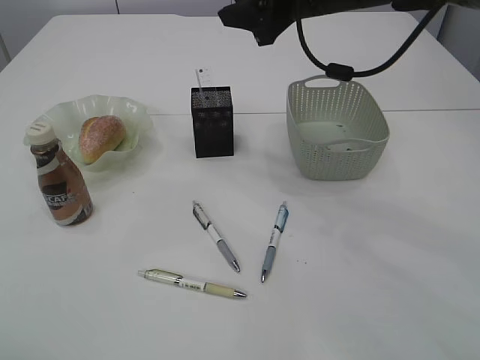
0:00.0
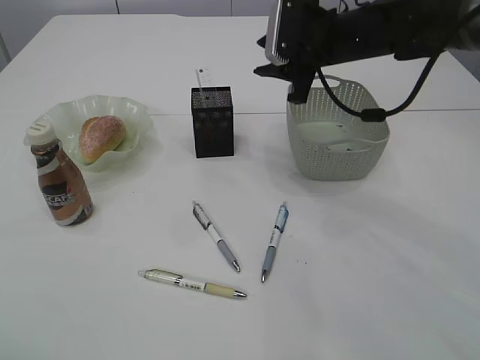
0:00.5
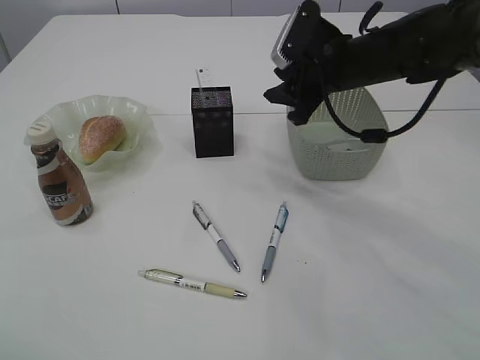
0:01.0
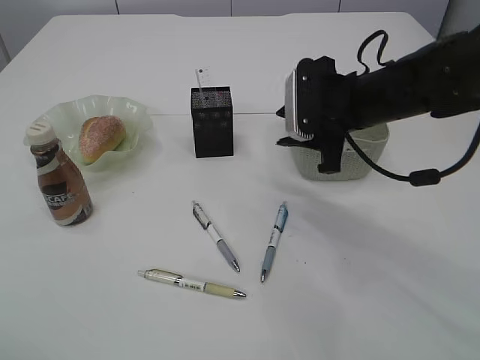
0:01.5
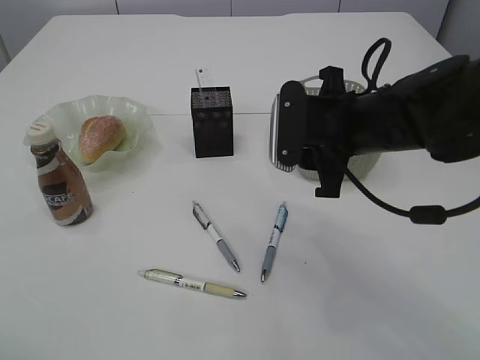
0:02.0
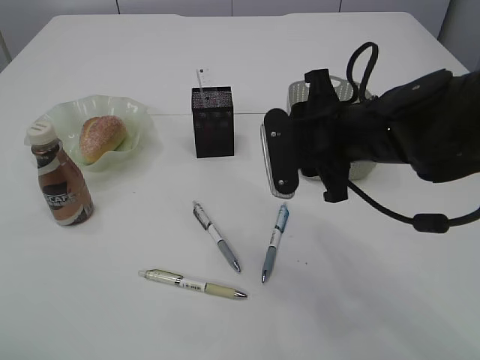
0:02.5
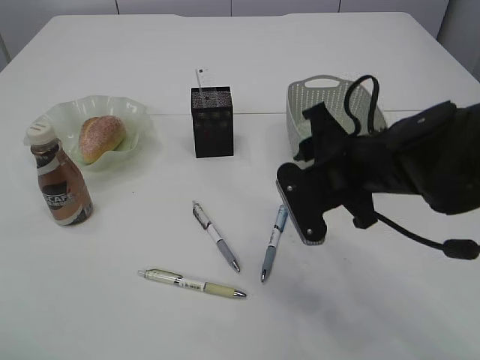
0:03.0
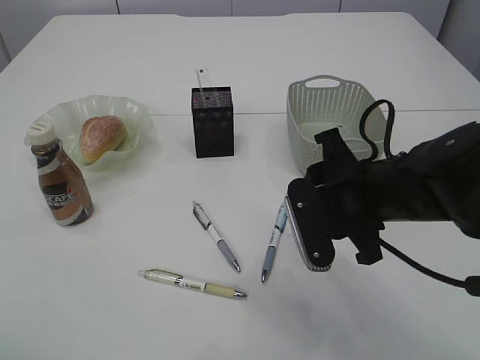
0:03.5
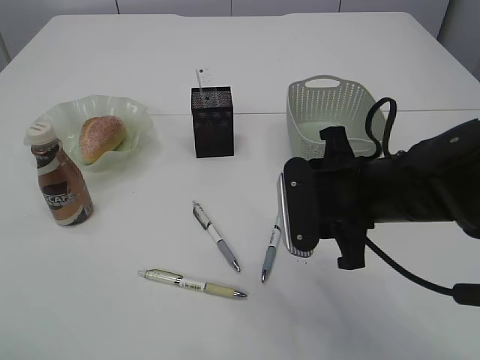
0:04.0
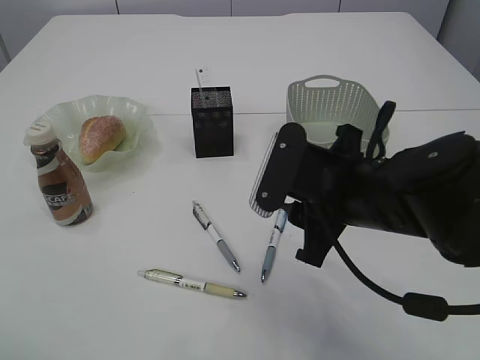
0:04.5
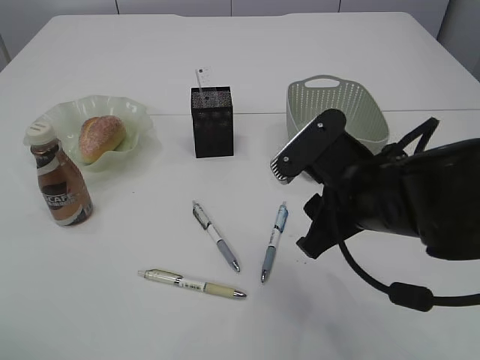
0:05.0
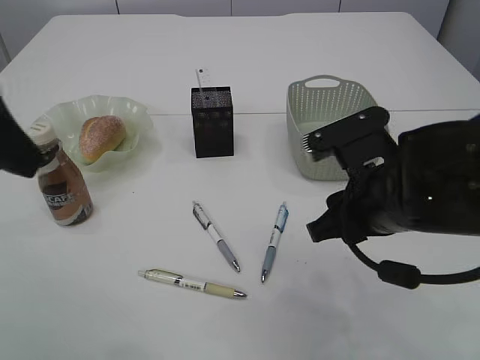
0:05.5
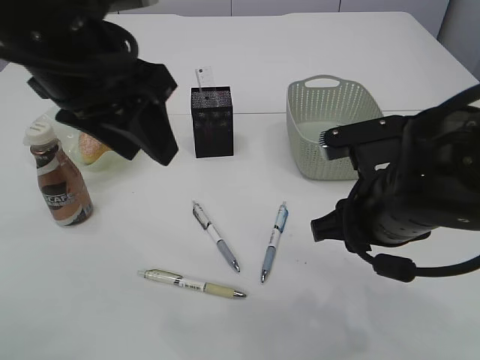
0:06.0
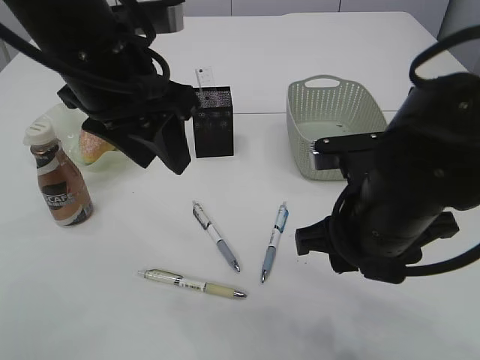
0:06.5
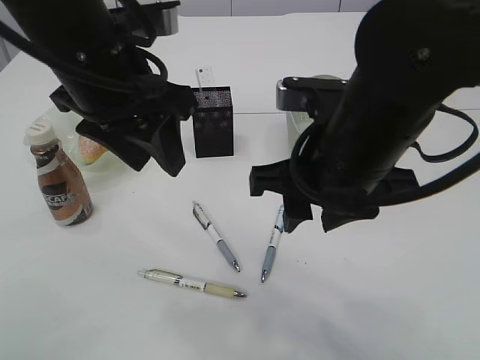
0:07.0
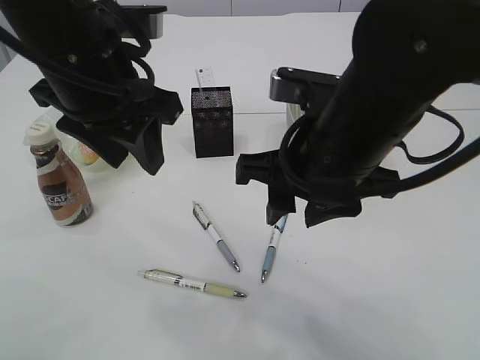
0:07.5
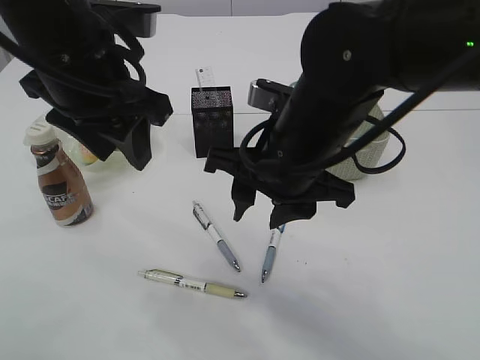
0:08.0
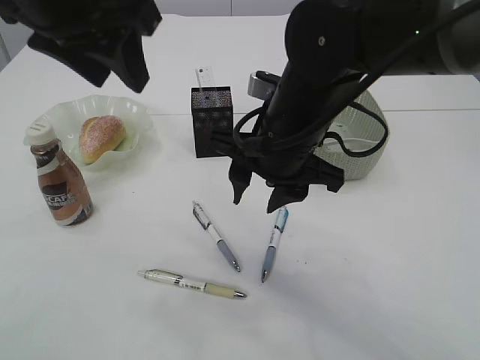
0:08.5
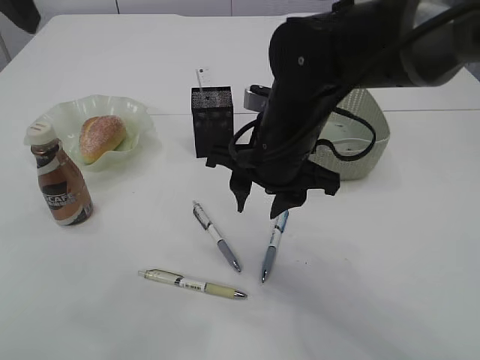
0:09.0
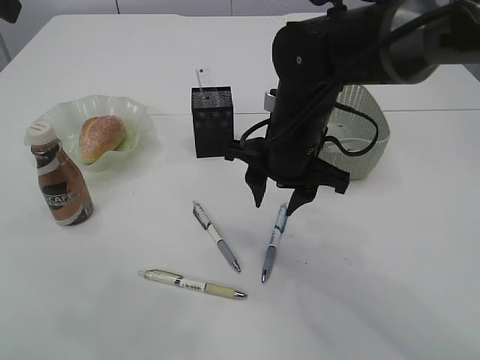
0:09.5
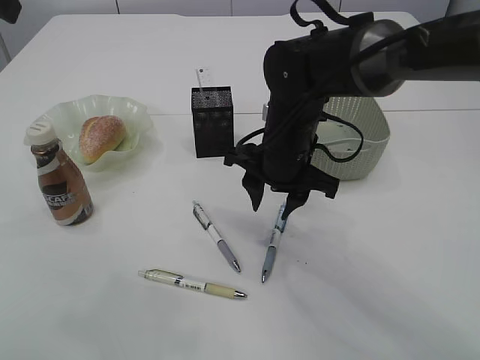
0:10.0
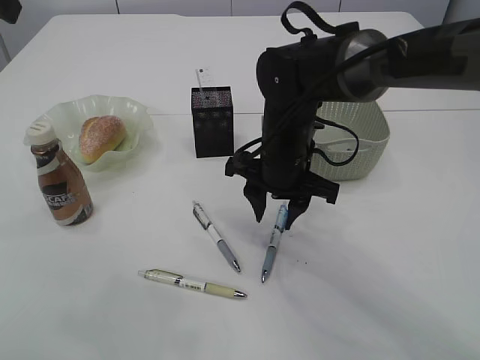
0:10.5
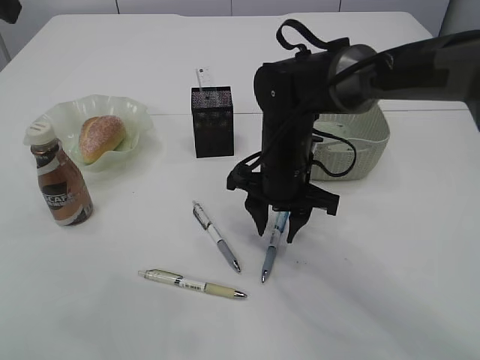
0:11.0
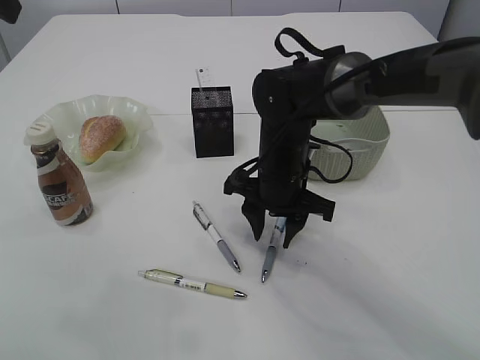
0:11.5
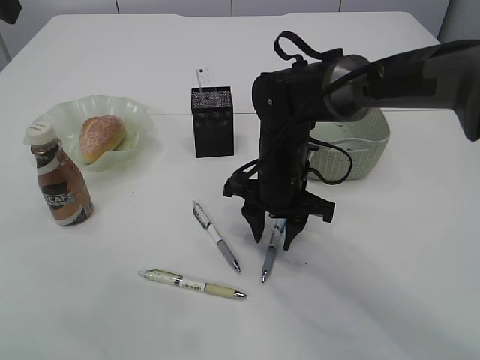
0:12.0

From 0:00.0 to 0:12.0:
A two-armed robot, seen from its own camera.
From 0:00.0 to 0:02.0: The right gripper is displaced backward and downward by roughly 15 cm.
From 0:02.0 to 0:04.0: The right gripper heads backward, covering some 5 cm.
From 0:04.0 to 0:06.0: The left gripper travels to the right and forward by about 20 cm.
From 0:06.0 to 0:08.0: The right gripper travels to the left by approximately 10 cm.
From 0:08.0 to 0:10.0: The left gripper moves upward and to the left, approximately 15 cm; the right gripper goes some 10 cm forward and downward.
From 0:10.0 to 0:12.0: The grippers stay close to where they were, moving slightly.

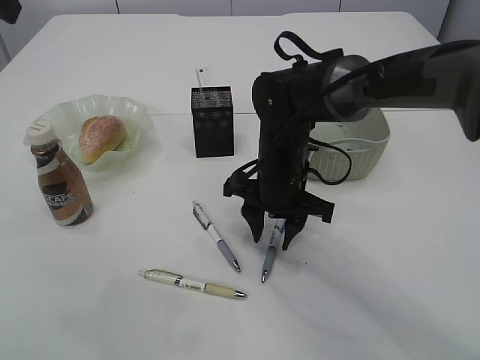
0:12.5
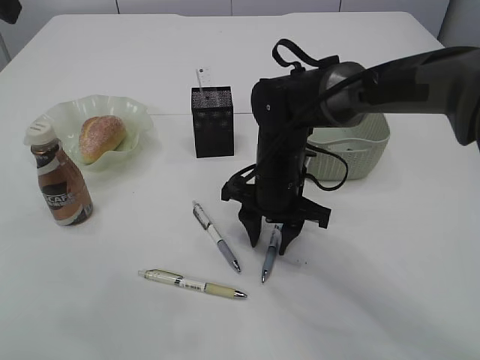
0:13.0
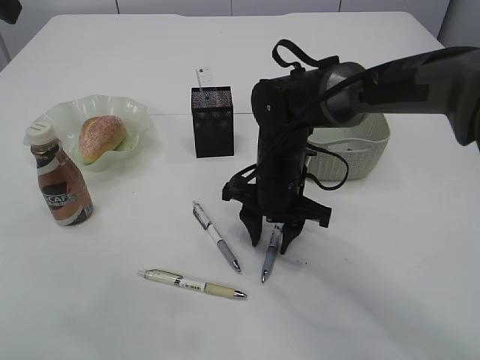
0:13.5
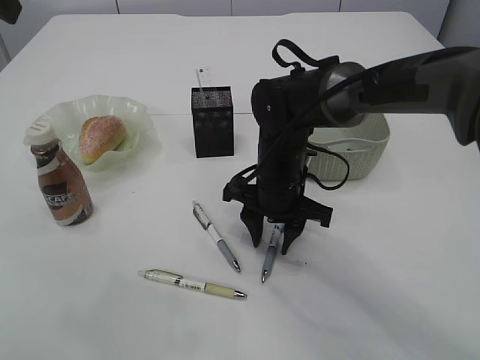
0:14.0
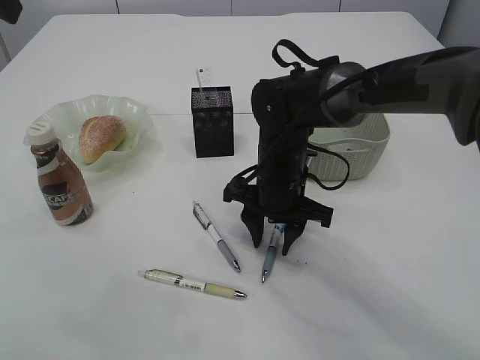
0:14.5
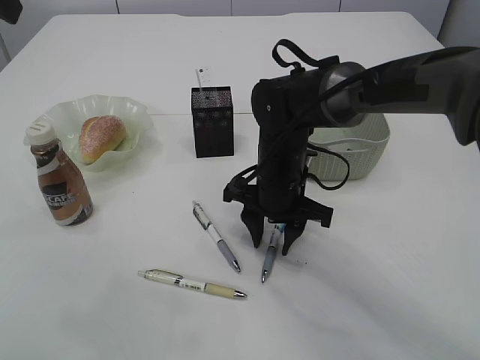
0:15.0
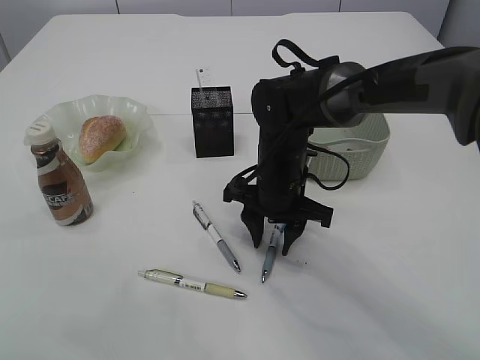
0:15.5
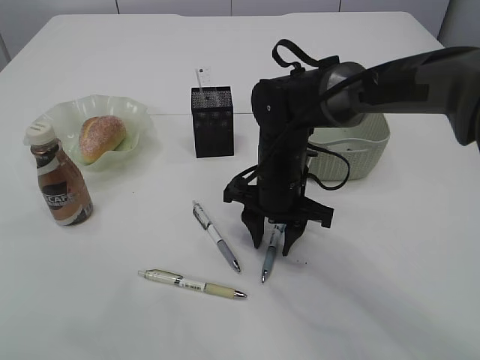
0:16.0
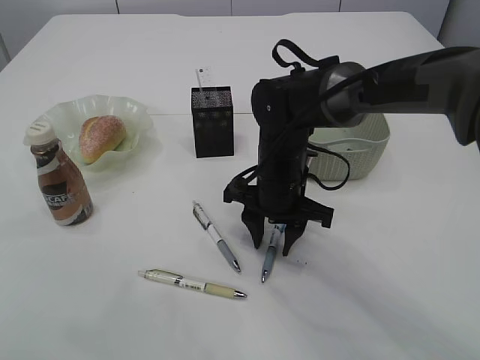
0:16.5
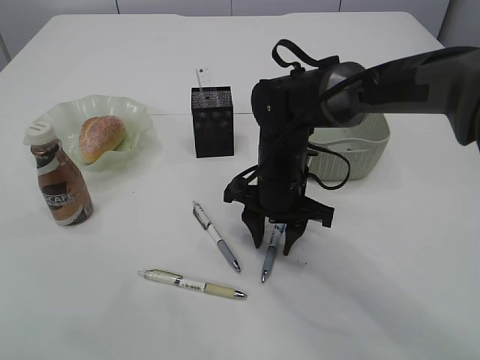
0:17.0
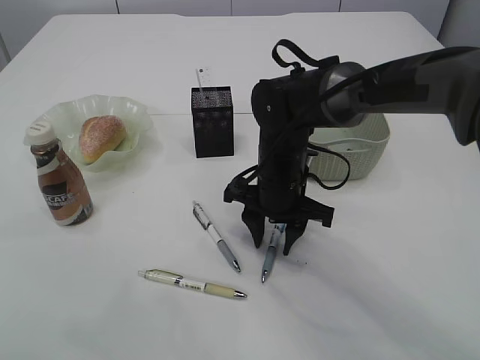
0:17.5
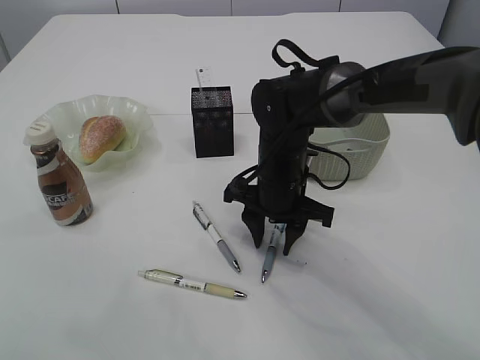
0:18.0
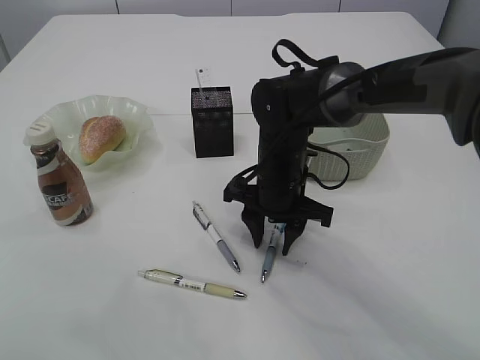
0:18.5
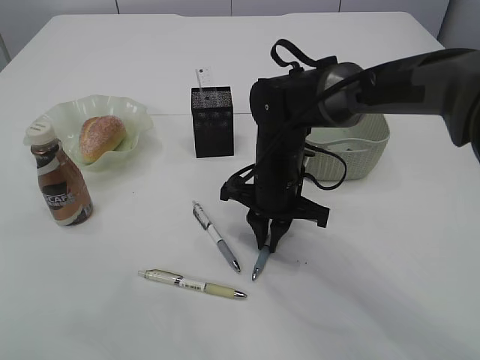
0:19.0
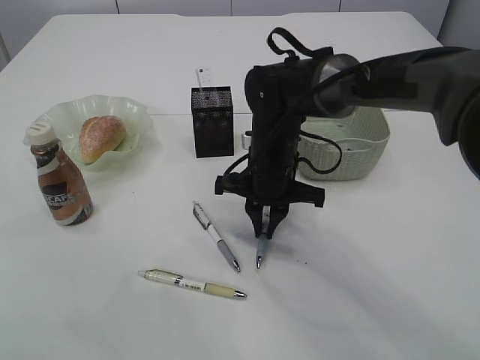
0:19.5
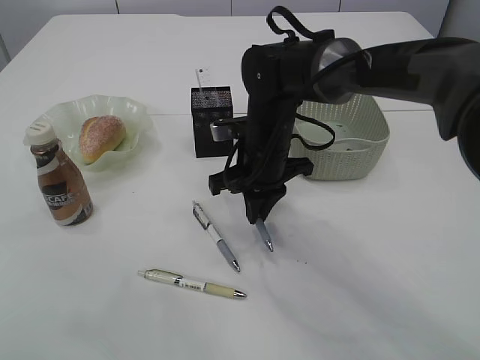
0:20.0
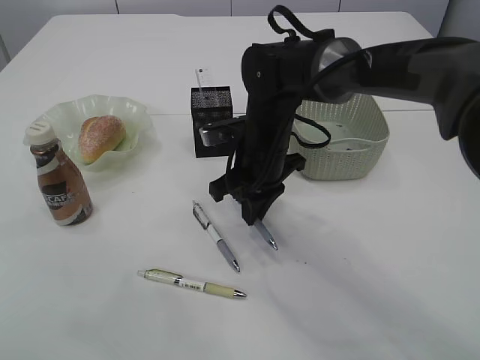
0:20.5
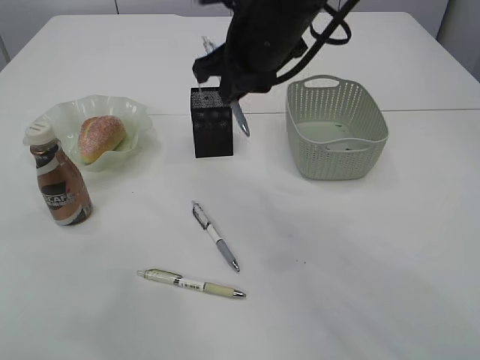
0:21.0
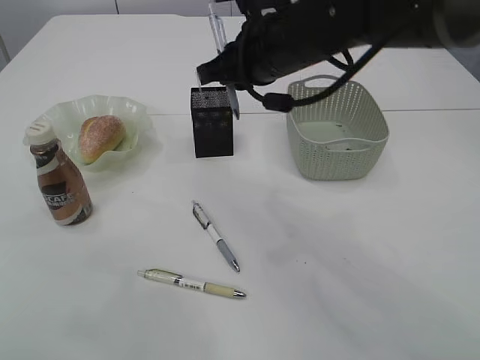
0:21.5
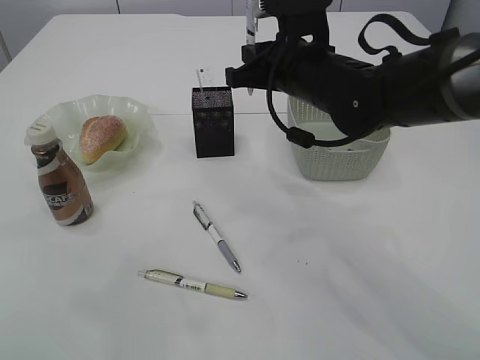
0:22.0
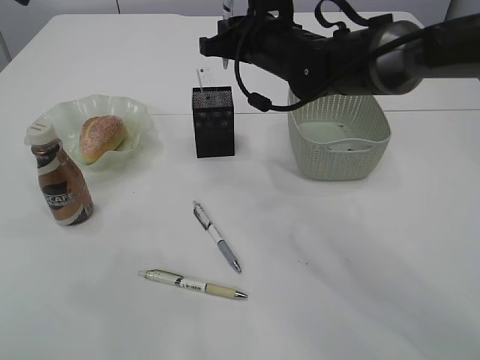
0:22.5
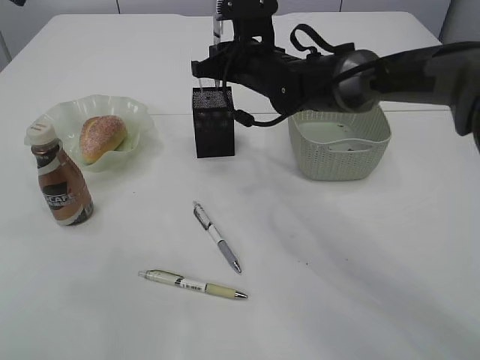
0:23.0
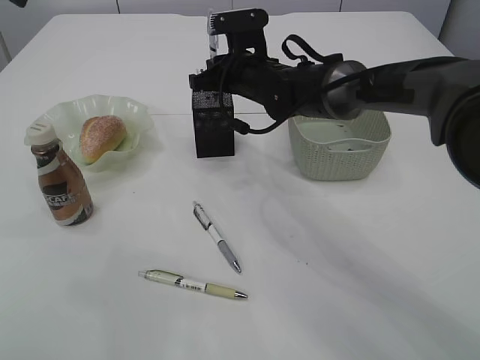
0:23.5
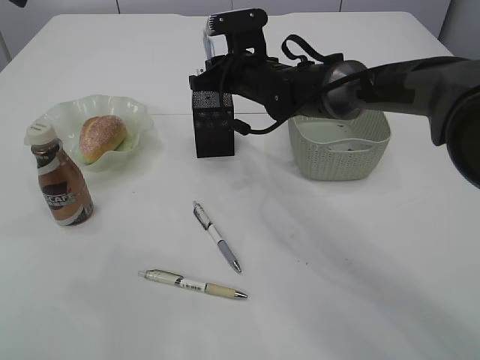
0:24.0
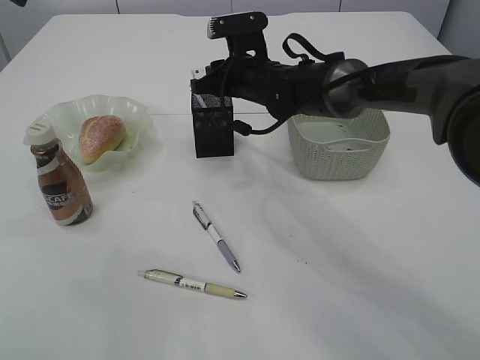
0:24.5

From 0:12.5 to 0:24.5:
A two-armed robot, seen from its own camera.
Step, from 0:12.5 to 0:20.5: Pick up the pen with right arm.
From 0:12.5 to 0:14.5: Neither gripper changes place.
From 0:16.5 to 0:18.5: Neither gripper changes place.
From 0:18.5 to 0:20.5: The right gripper closes.
From 0:20.5 to 0:22.5: The right gripper goes about 10 cm upward and forward.
From 0:22.5 to 0:24.5: The right gripper shifts roughly 5 cm downward.

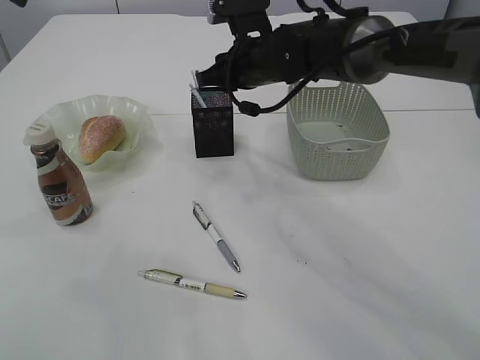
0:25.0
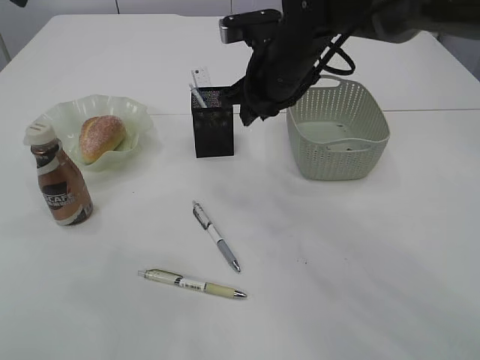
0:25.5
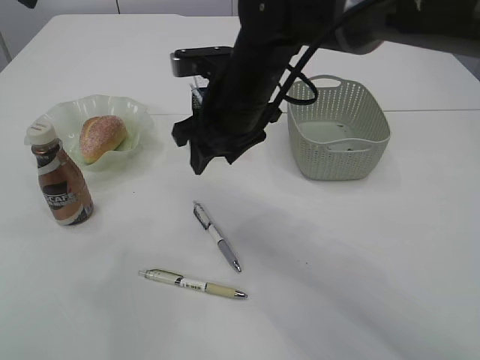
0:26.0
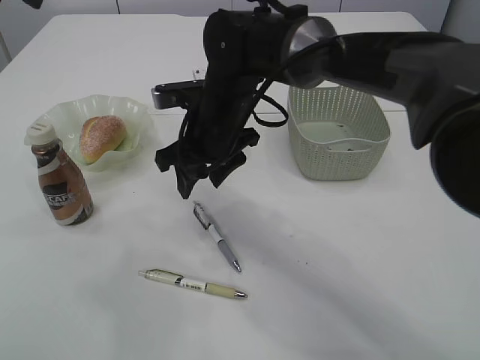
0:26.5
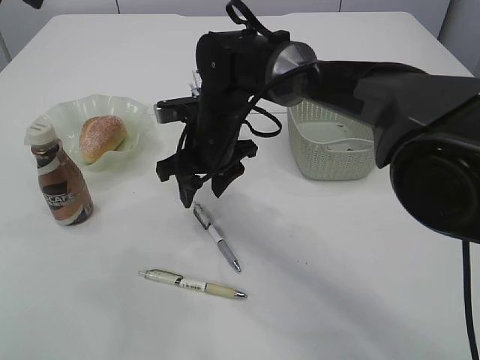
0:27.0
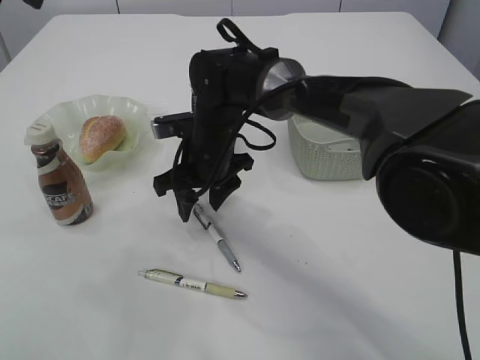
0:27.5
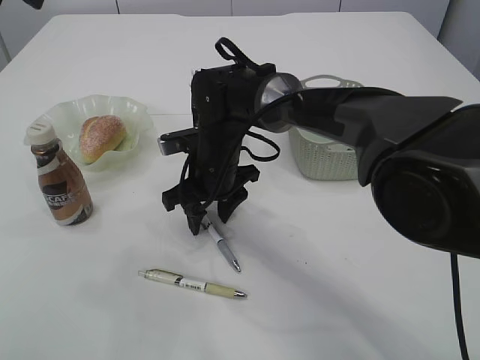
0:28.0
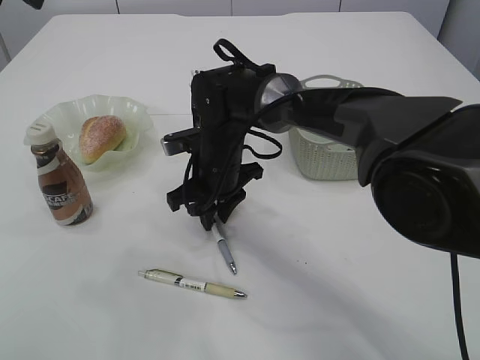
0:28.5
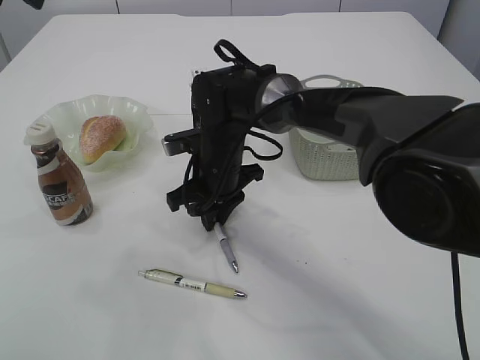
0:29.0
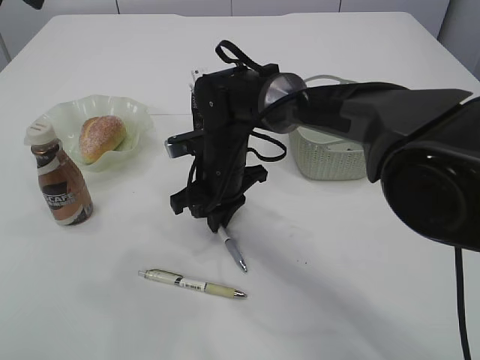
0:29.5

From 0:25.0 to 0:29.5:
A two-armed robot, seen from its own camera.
From 0:25.0 to 0:27.0: The right gripper moves to the left, backward and downward, approximately 10 cm, and opens its fingers.
From 0:27.0 to 0:29.5: The right gripper closes its fingers.
